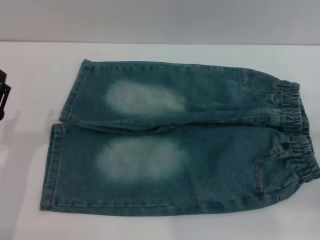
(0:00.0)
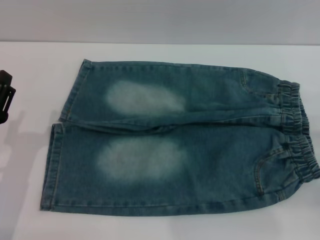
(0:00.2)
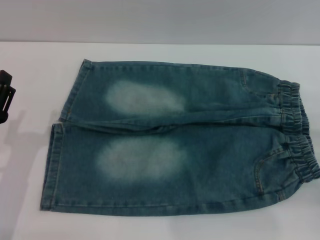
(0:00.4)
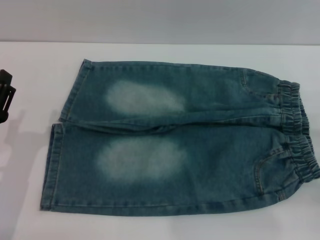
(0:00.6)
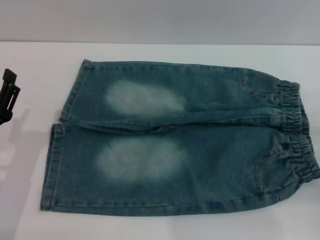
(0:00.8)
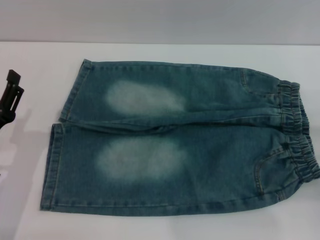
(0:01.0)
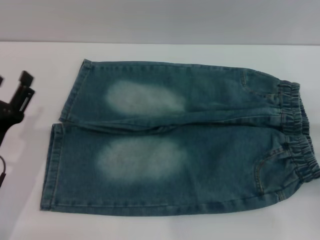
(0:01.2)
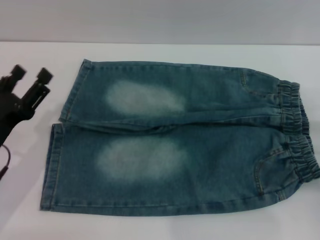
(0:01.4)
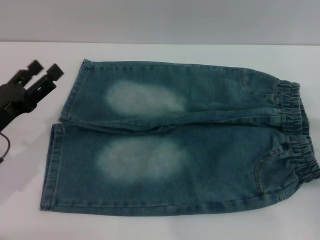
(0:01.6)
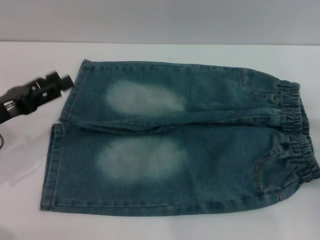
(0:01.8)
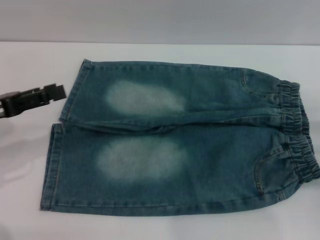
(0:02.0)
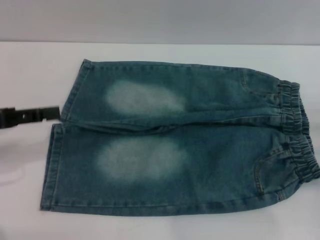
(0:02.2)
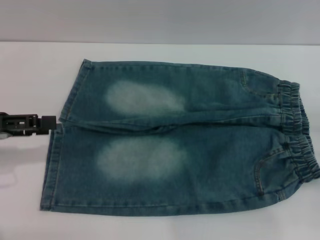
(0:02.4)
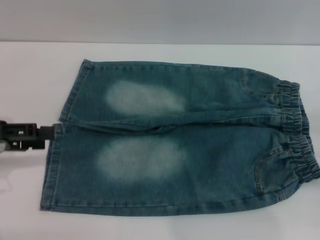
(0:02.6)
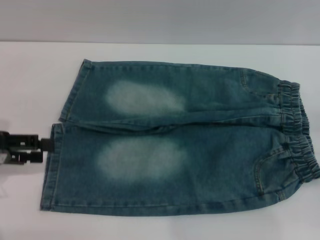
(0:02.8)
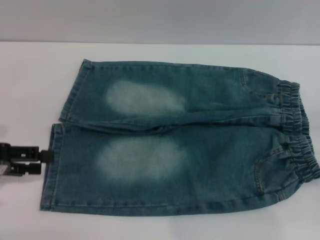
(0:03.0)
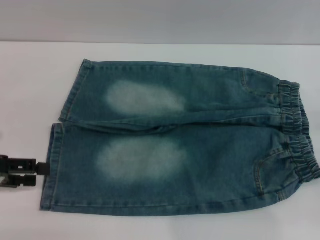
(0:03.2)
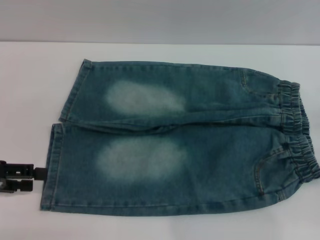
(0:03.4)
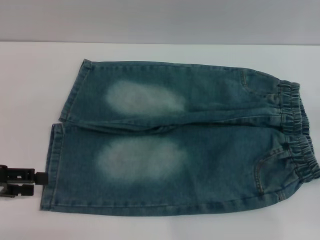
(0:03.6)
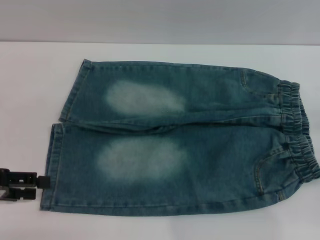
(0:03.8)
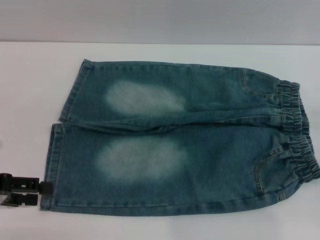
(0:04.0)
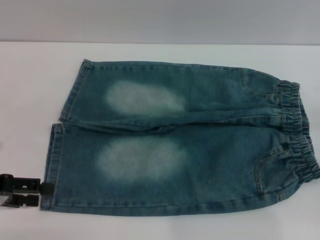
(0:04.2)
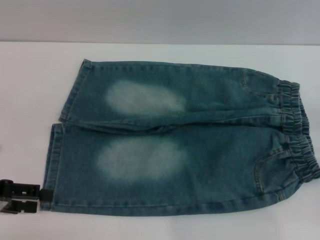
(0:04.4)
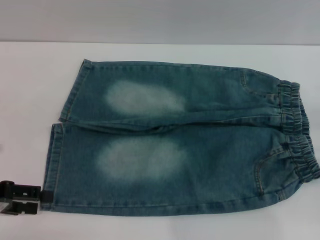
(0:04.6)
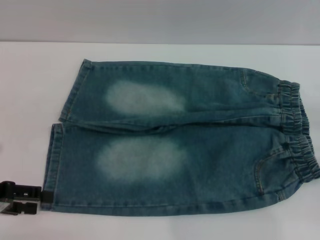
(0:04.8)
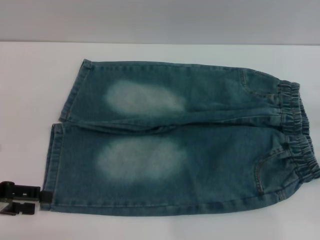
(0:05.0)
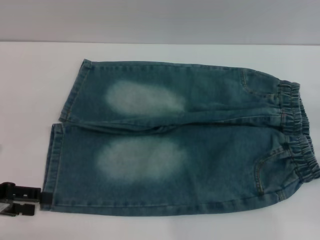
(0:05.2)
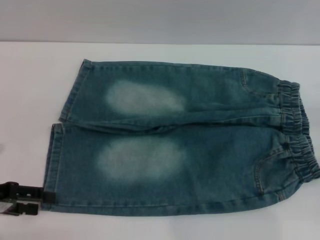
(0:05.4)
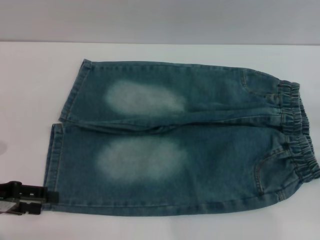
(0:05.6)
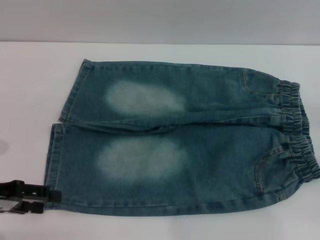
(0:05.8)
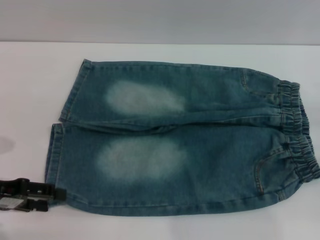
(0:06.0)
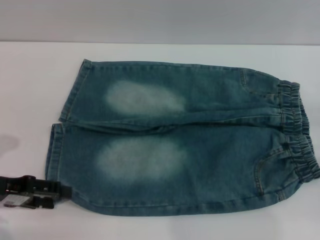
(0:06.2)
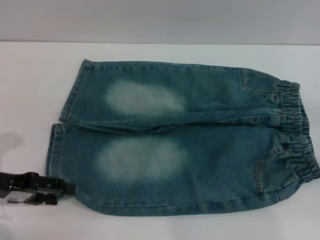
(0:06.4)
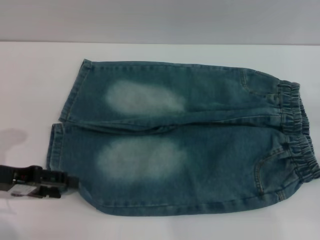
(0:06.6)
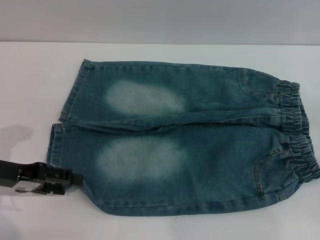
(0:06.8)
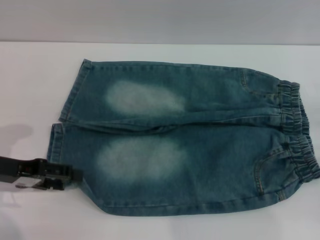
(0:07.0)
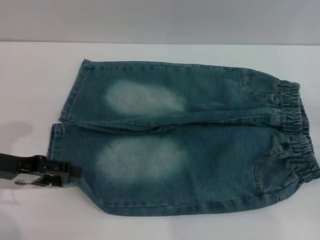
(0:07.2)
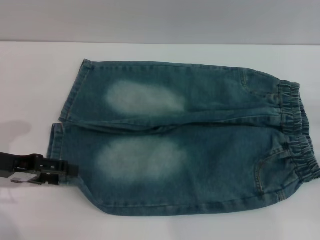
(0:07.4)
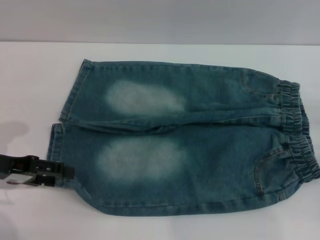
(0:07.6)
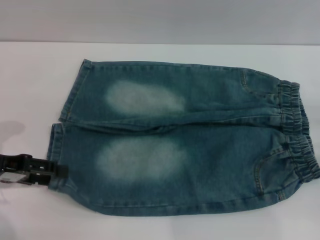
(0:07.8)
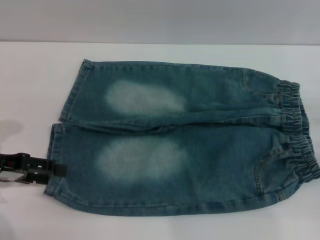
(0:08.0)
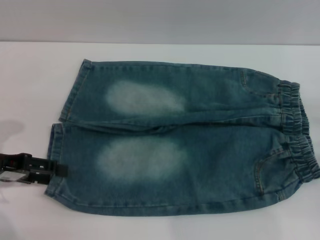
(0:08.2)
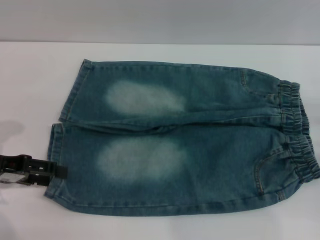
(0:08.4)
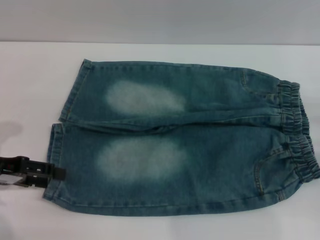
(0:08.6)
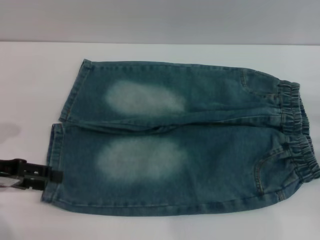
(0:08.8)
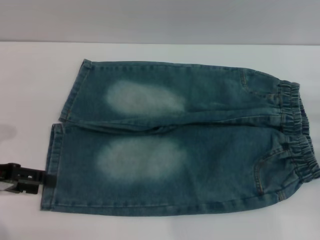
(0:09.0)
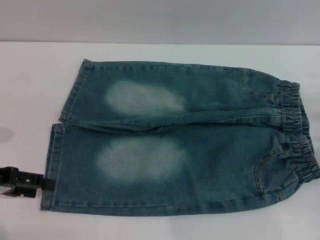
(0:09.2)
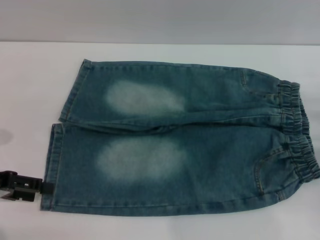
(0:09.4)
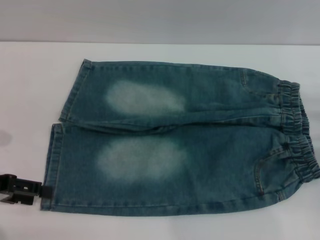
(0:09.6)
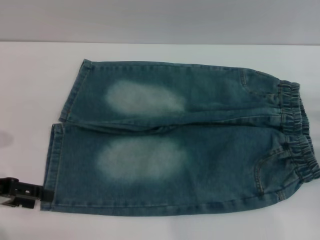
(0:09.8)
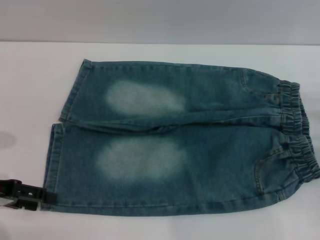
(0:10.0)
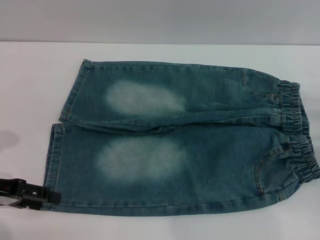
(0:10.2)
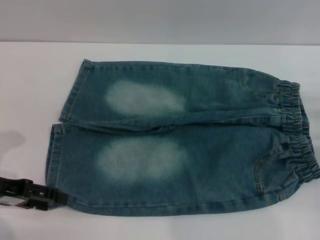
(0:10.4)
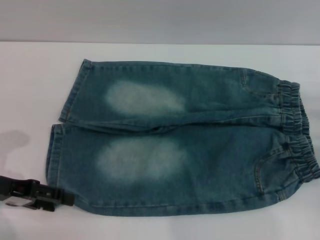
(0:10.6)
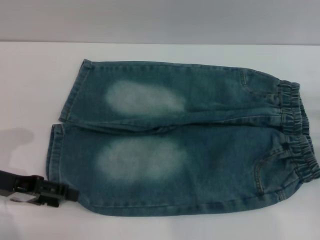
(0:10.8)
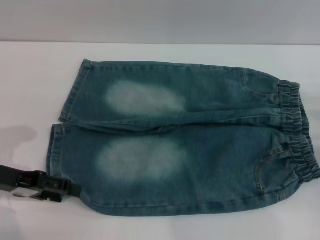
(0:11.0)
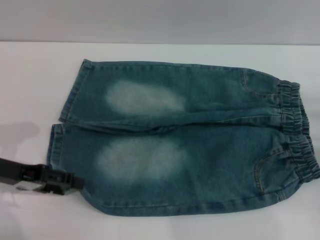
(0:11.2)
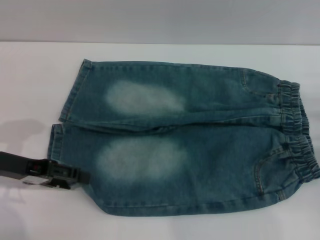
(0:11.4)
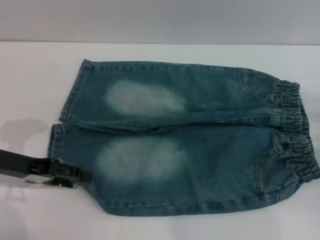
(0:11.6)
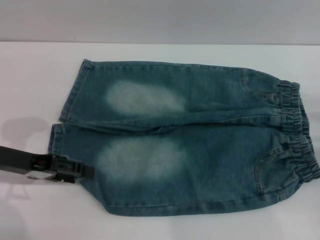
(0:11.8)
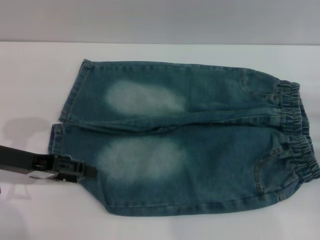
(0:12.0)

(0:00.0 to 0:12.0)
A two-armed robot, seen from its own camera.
0:00.0 - 0:01.6: The left gripper ends up roughly 5 cm from where it was.
0:01.6 - 0:03.0: The left gripper moves to the left and upward, about 10 cm.
0:03.0 - 0:10.4: The grippers stay close to where they were, moving slightly.
0:10.4 - 0:12.0: The grippers move only a little.

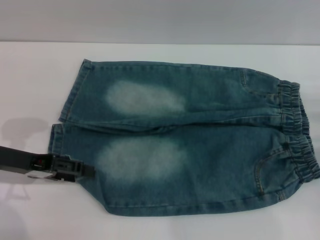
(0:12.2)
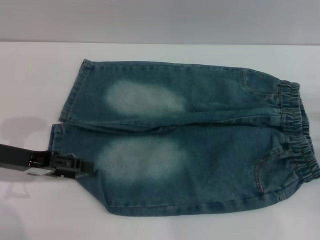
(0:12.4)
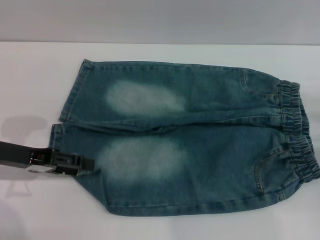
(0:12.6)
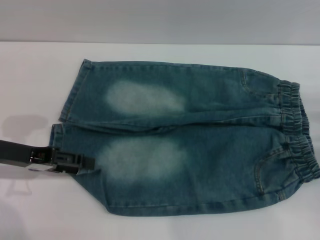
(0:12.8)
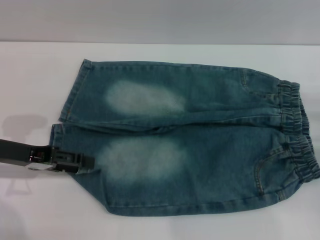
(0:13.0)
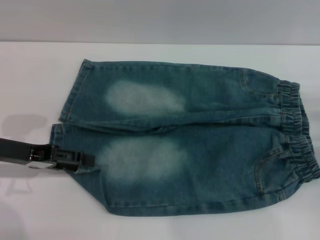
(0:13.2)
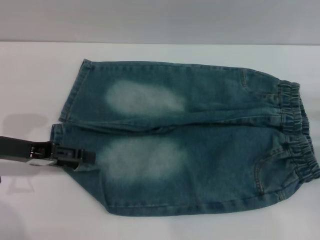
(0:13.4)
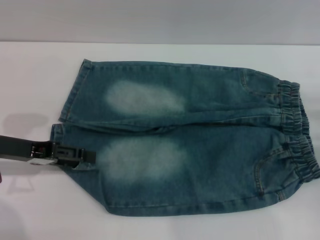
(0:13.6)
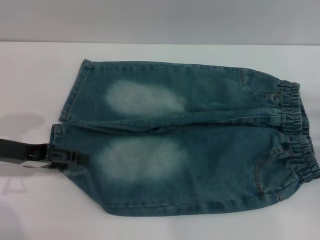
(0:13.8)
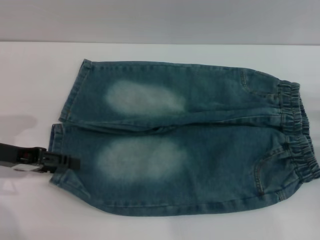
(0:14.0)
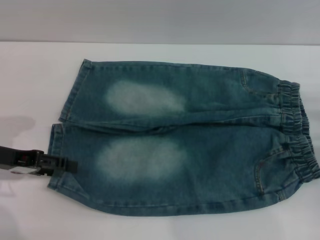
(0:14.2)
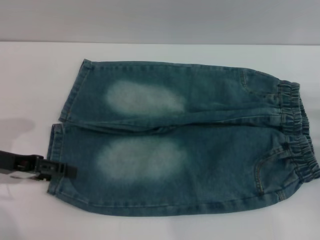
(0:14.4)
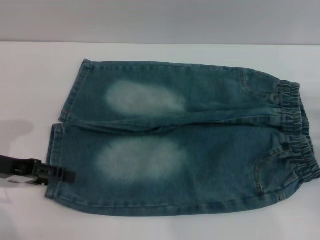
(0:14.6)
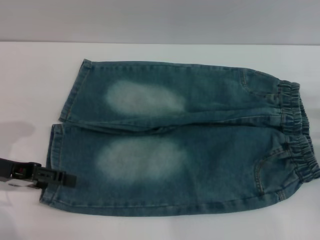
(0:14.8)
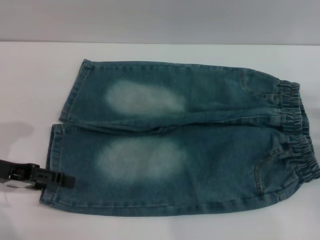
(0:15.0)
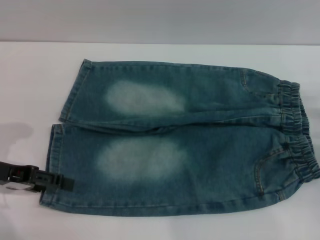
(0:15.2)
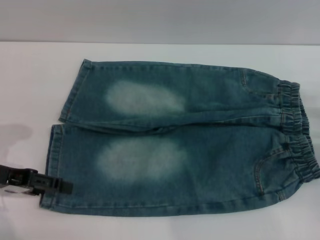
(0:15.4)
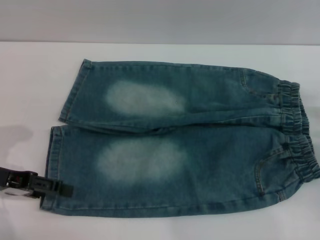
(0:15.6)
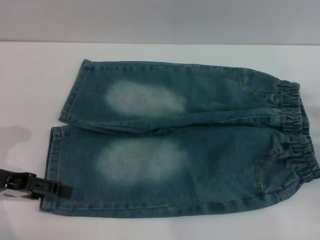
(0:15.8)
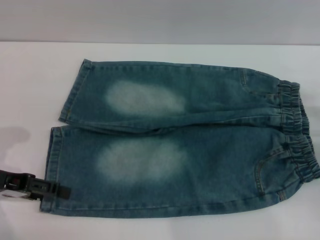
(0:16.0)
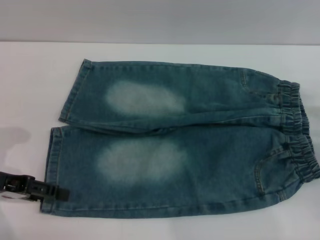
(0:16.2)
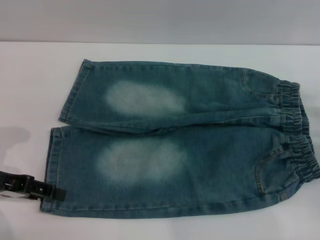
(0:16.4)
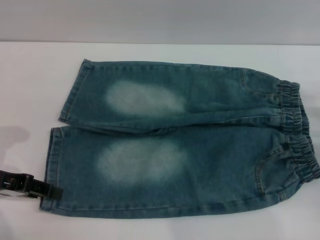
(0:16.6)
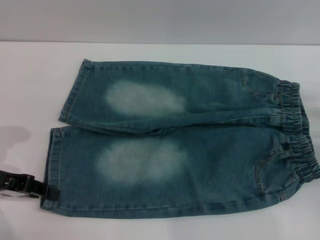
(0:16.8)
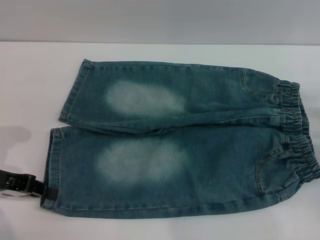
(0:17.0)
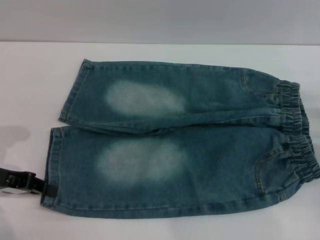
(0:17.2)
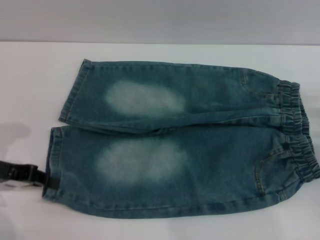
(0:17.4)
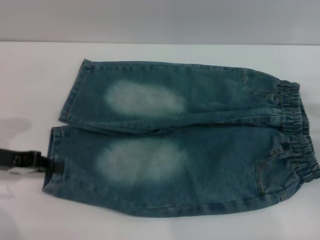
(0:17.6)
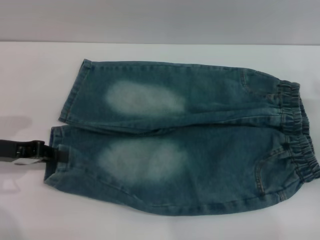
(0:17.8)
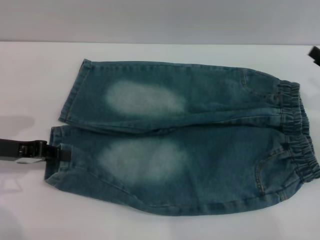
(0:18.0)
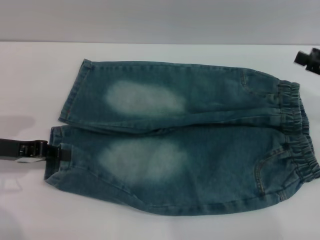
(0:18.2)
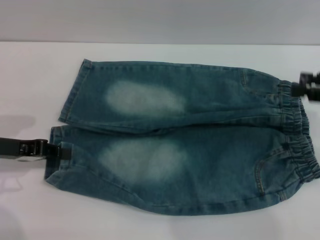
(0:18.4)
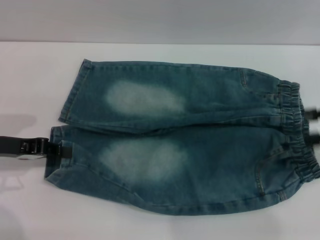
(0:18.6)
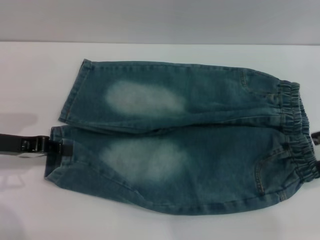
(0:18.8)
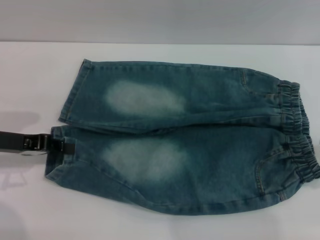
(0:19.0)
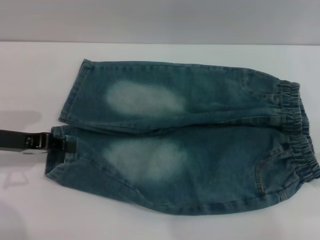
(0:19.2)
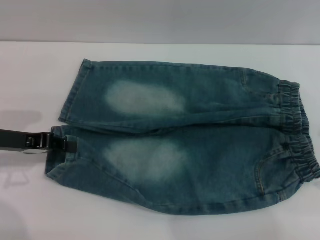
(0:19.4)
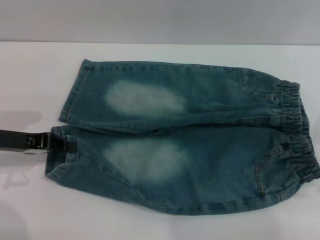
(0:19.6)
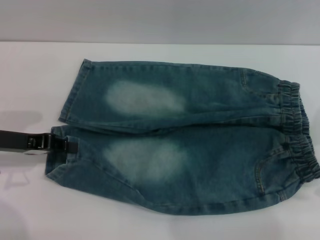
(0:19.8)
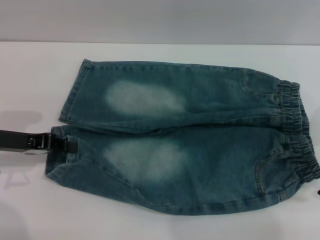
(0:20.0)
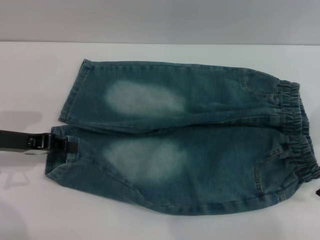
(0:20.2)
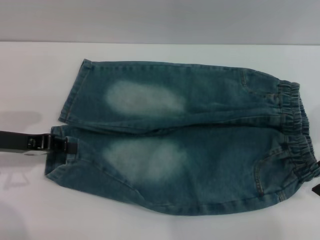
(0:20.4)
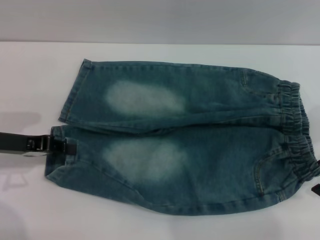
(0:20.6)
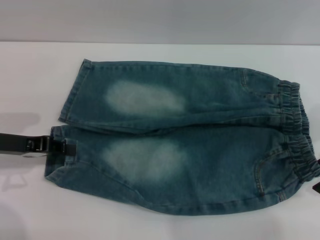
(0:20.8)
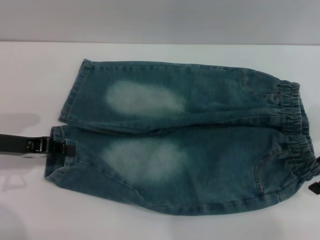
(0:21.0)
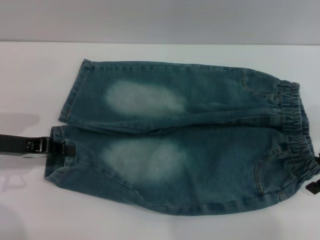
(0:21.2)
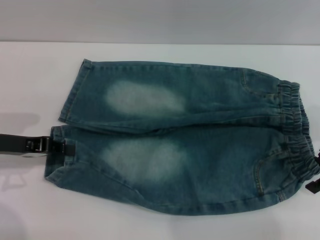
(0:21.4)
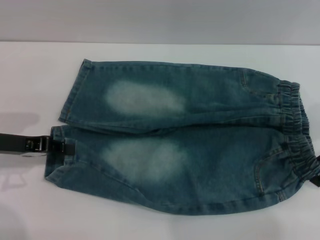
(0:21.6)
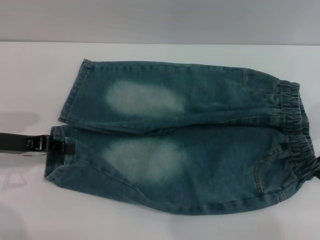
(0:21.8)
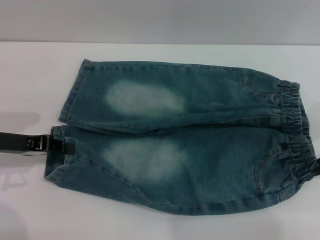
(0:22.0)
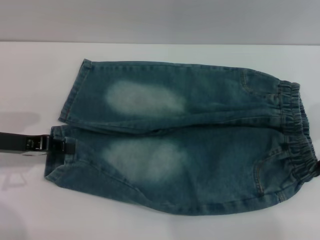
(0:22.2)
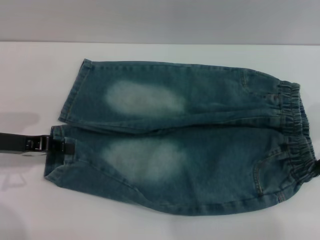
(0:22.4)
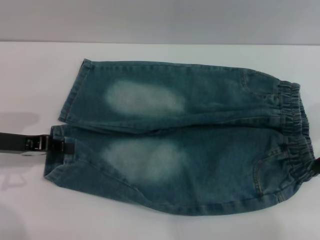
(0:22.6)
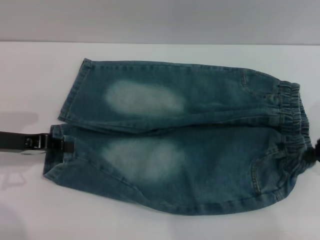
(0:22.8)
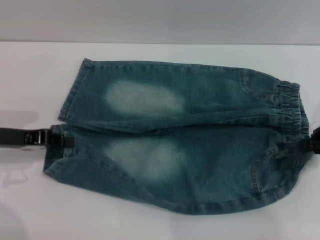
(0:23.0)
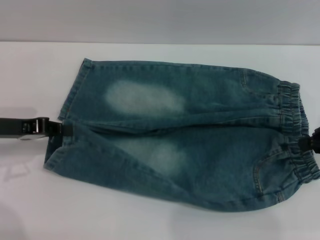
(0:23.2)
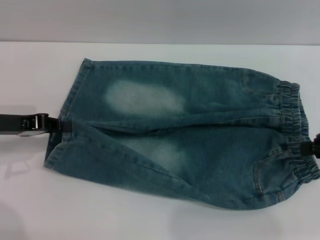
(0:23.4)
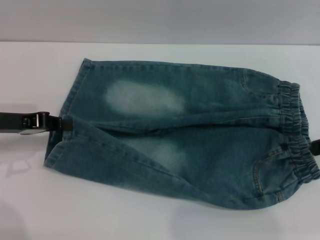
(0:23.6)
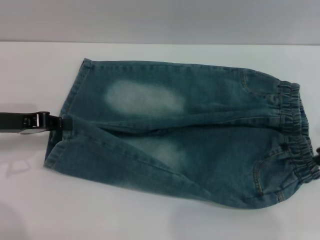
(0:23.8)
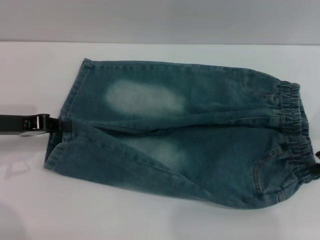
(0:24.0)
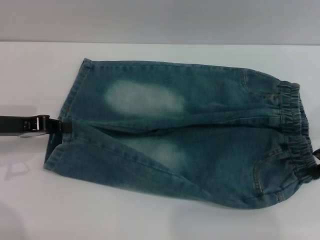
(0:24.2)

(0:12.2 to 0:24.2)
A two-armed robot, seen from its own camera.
0:12.2 - 0:15.2: The grippers move only a little.
0:15.2 - 0:16.6: The two grippers keep their place.
0:16.6 - 0:18.2: The right gripper is displaced upward by approximately 10 cm. The left gripper closes up.
0:19.8 - 0:21.2: The grippers move only a little.
0:21.2 - 0:22.6: The right gripper closes.
0:22.6 - 0:24.2: The right gripper opens.
